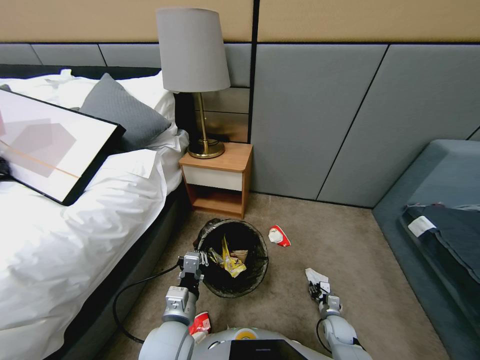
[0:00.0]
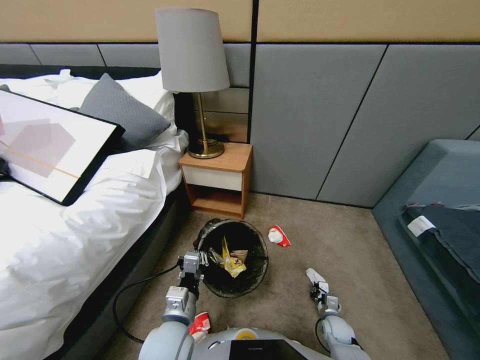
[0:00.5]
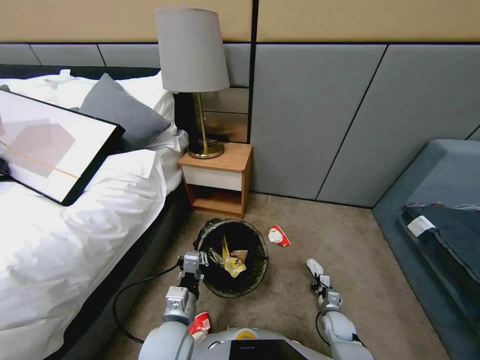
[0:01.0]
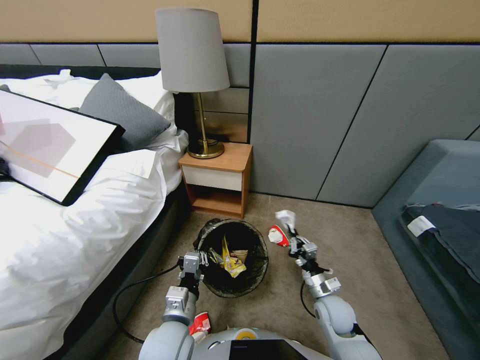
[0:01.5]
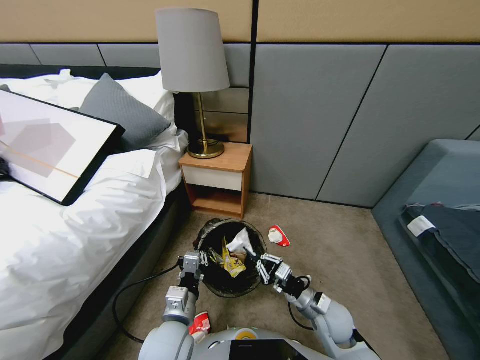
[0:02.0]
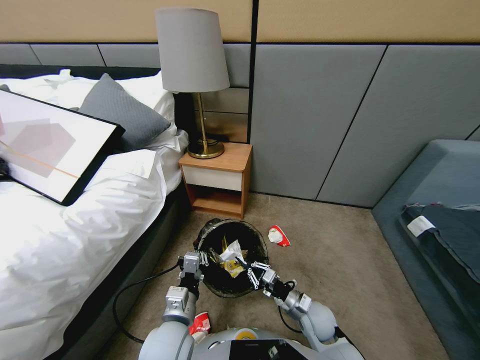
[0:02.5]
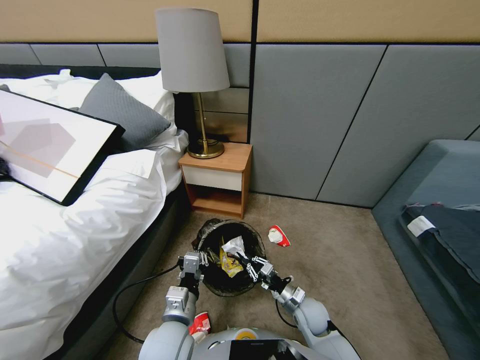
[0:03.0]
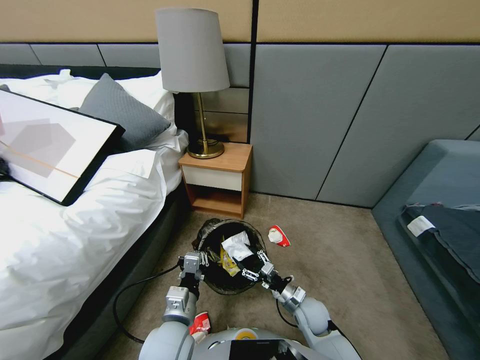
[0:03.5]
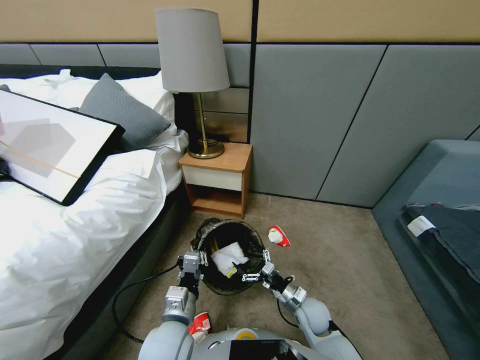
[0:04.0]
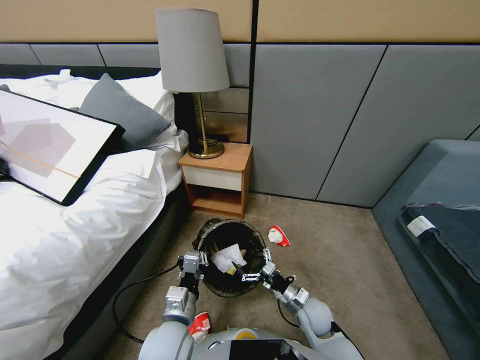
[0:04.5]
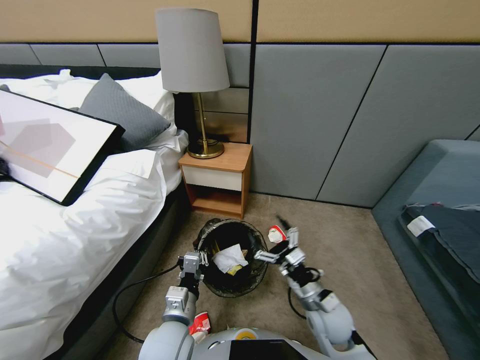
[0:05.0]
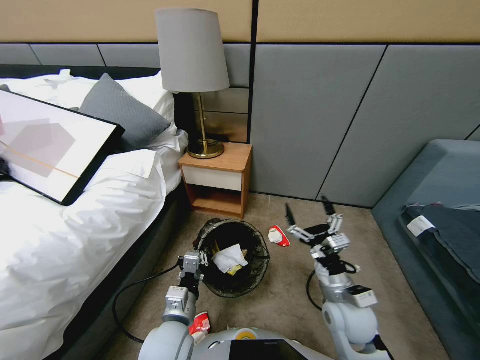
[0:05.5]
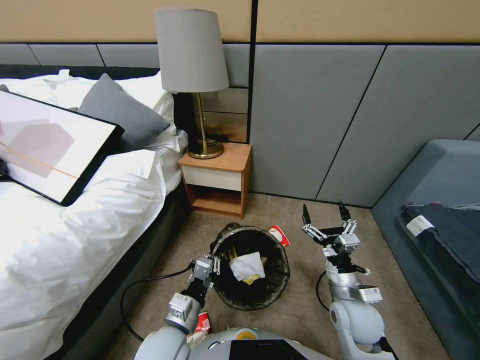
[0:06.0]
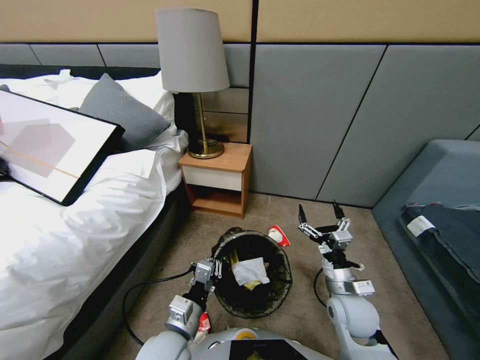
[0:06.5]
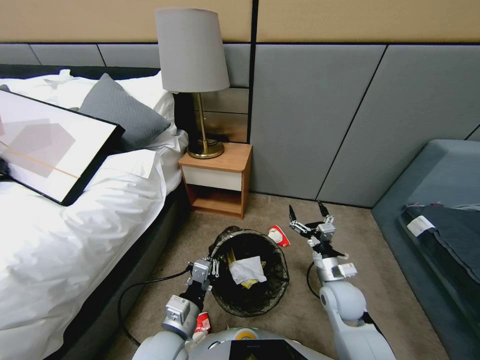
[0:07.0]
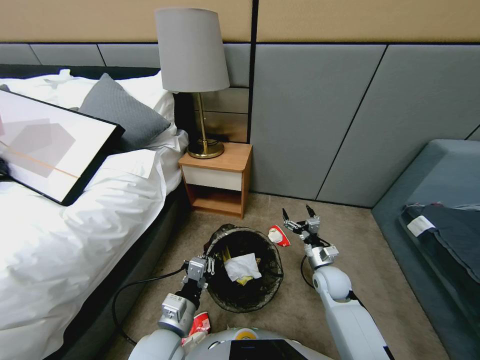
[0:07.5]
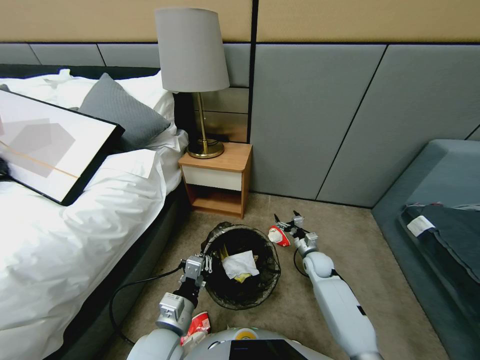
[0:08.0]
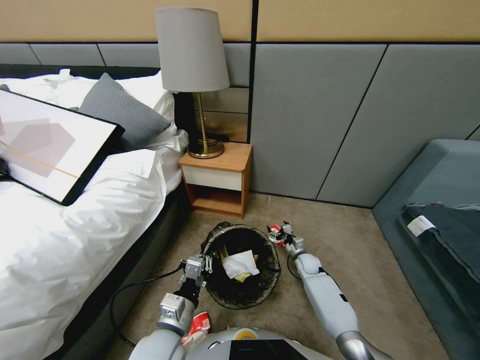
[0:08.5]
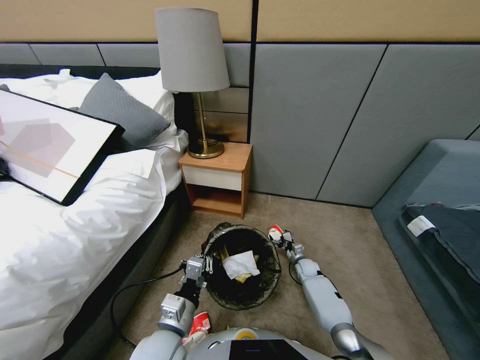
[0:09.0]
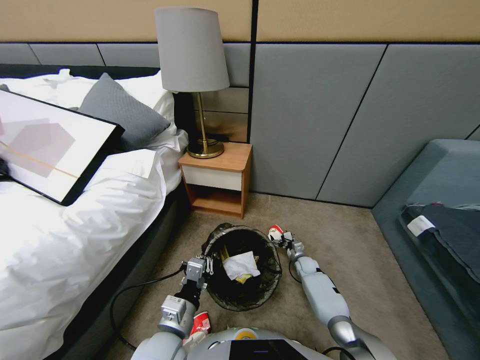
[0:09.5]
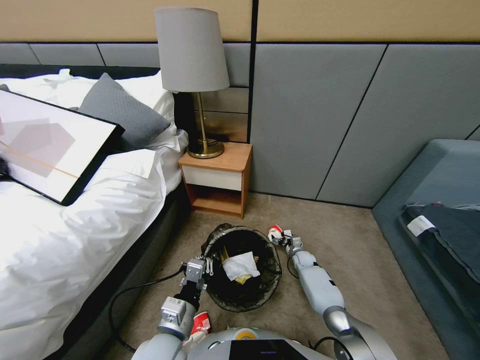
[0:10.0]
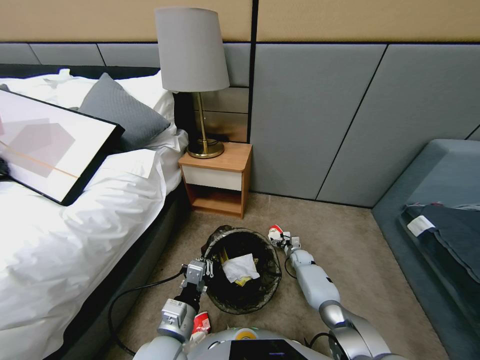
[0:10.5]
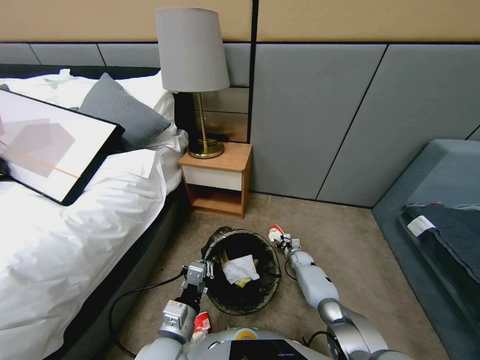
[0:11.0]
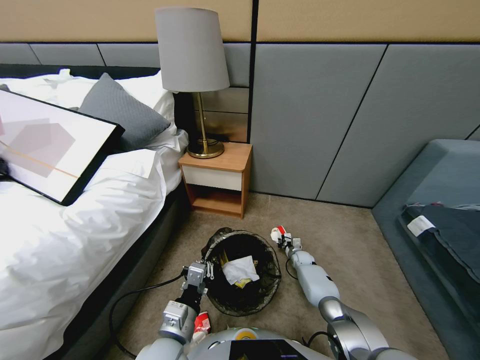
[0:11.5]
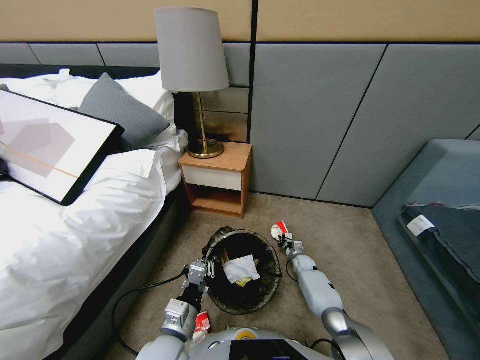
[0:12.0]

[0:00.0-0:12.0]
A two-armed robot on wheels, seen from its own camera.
Task of the whole recording: Pick up the trash bin, then pick up the garbage from the floor and place it into the trash bin.
0.0 to 2.0 s: The right gripper is displaced upward and to the left by approximately 20 cm.
2.0 to 4.0 s: The right gripper moves some 5 cm, and opens.
4.0 to 6.0 s: The right gripper heads upward, covering approximately 15 cm.
6.0 to 8.0 s: The right gripper moves forward and downward, some 25 cm.
8.0 to 10.0 s: The right gripper moves downward and forward, about 10 cm.
10.0 to 12.0 s: The right gripper closes.

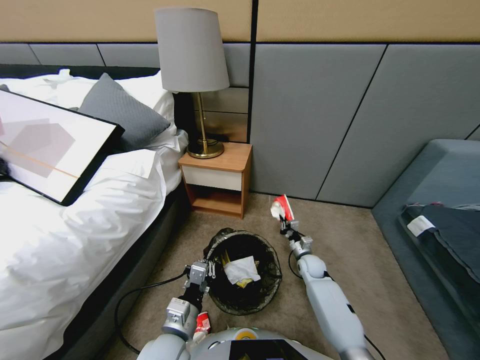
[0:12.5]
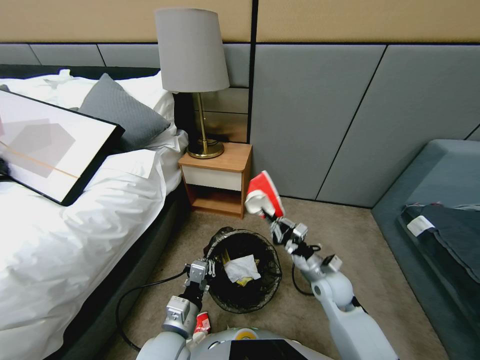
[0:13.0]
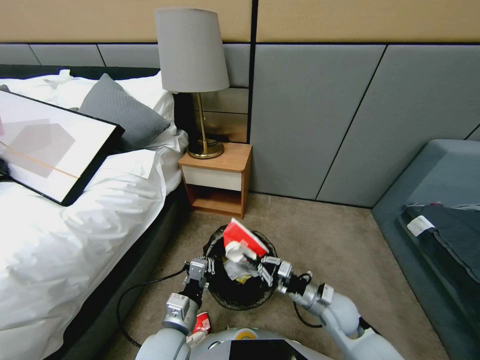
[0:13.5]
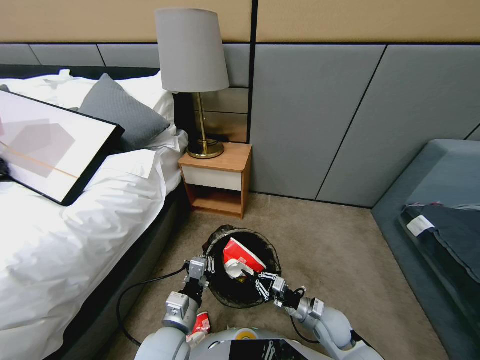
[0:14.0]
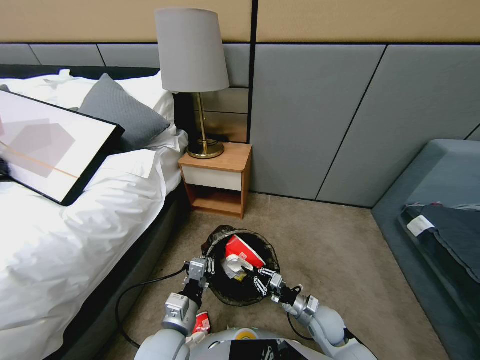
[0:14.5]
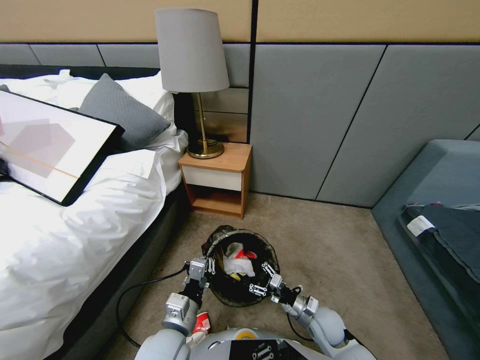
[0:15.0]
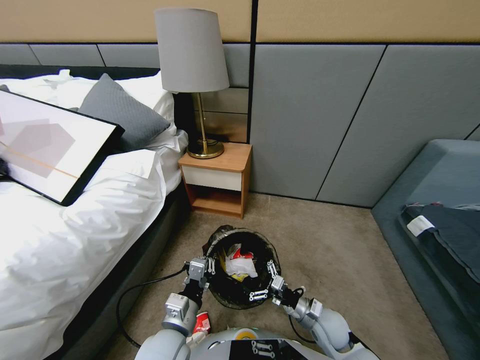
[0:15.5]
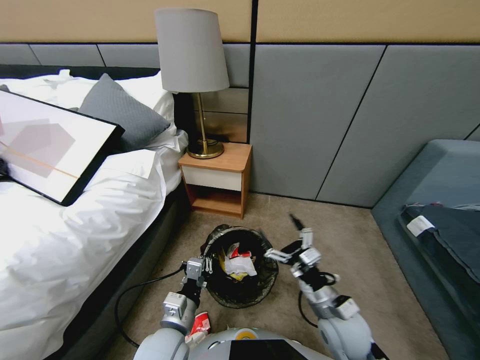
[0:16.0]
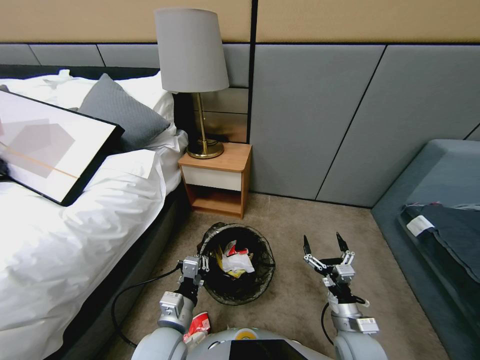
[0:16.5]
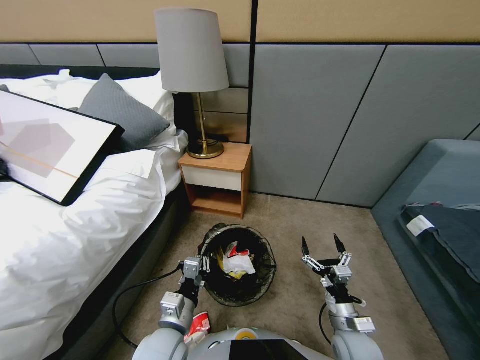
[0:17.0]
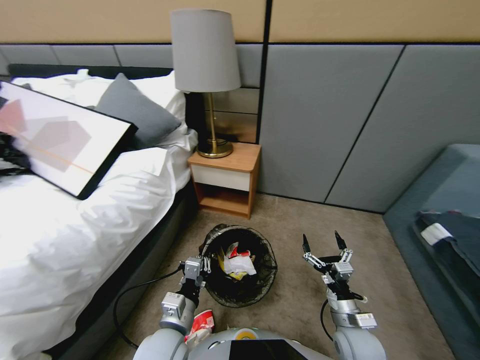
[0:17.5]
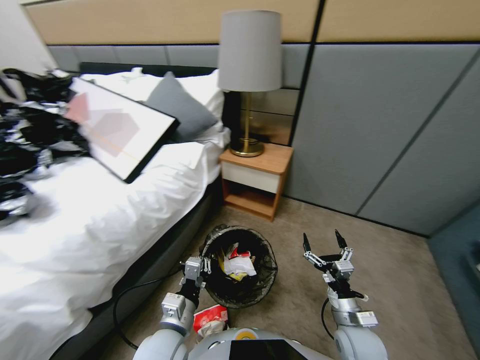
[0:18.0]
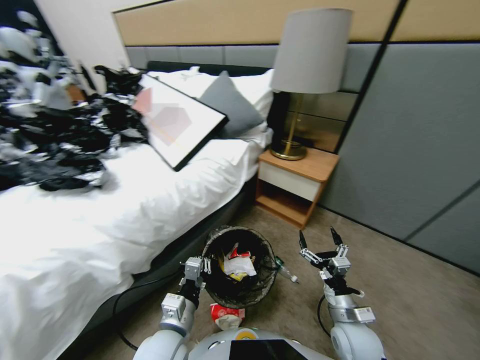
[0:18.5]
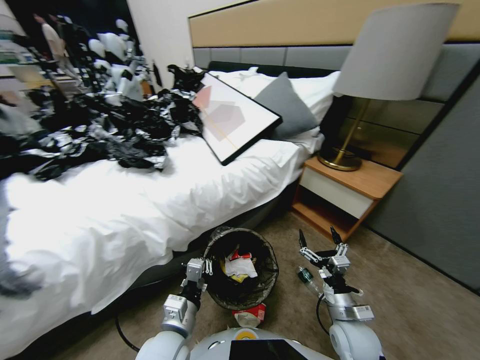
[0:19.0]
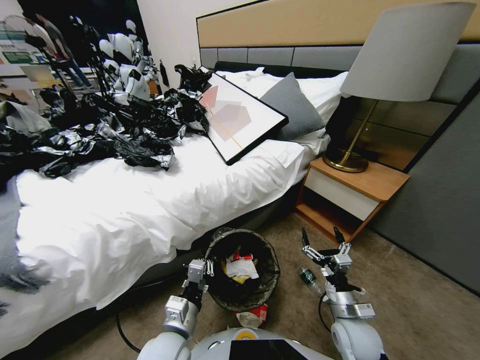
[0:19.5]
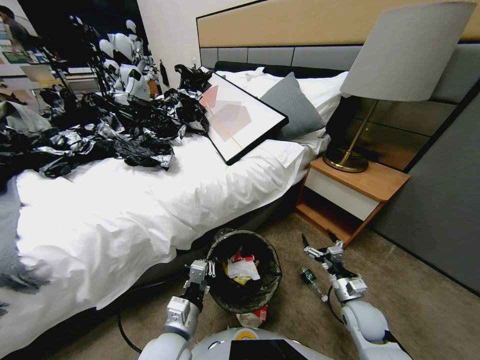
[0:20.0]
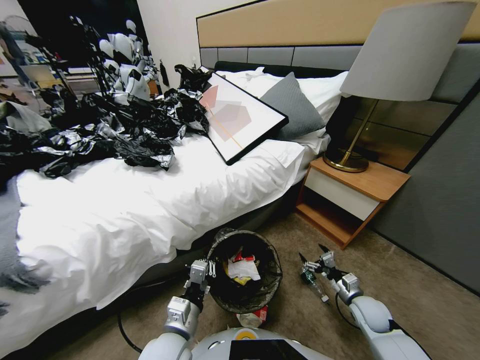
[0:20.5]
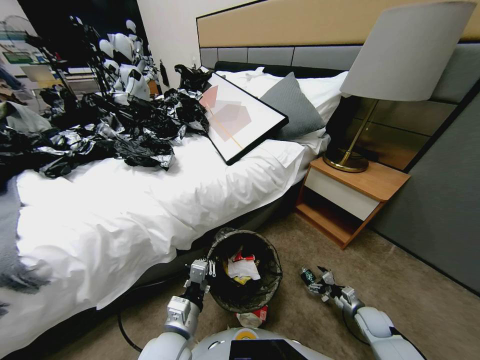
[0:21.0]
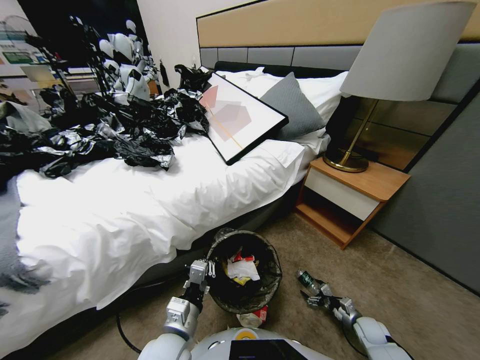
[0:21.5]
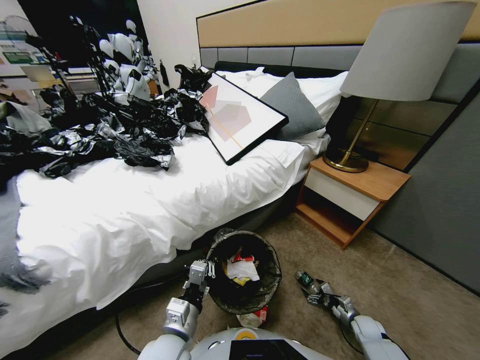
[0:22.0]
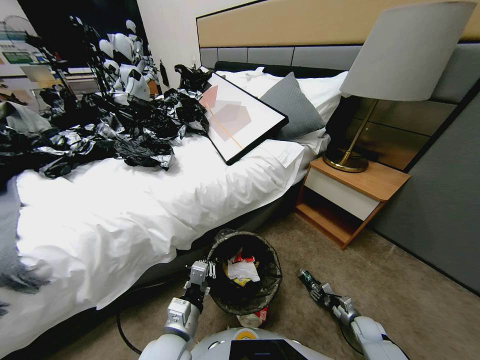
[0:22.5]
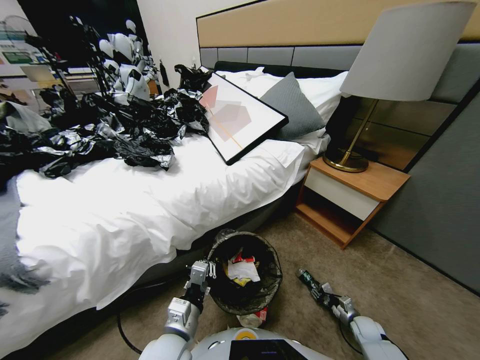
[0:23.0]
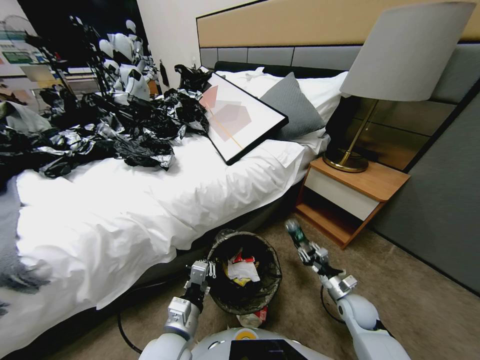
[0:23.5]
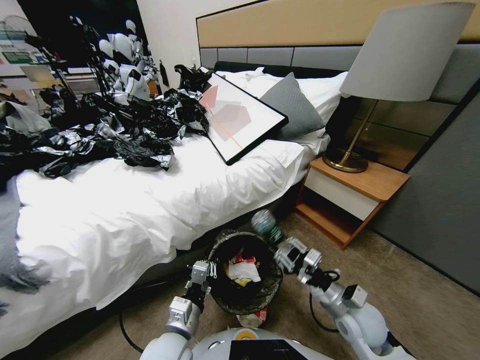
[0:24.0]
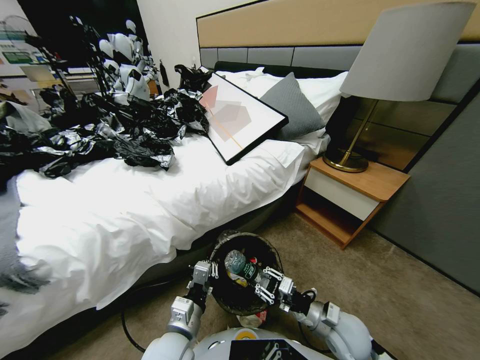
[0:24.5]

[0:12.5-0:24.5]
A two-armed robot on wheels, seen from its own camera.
Task of the whole recording: Pick up the trash bin, then pick up the garbage from the floor and place it into the trash bin.
12.5 to 14.5 s: The right gripper moves backward, roughly 15 cm.
14.5 to 16.5 s: The right gripper travels backward and upward by about 10 cm, and opens.
18.5 to 20.5 s: The right gripper travels to the right, downward and forward by about 20 cm.
20.5 to 22.5 s: The right gripper heads downward, covering about 10 cm, and closes up.
22.5 to 24.5 s: The right gripper shifts about 30 cm upward and to the left.

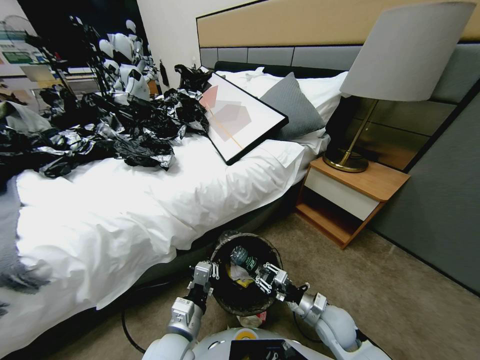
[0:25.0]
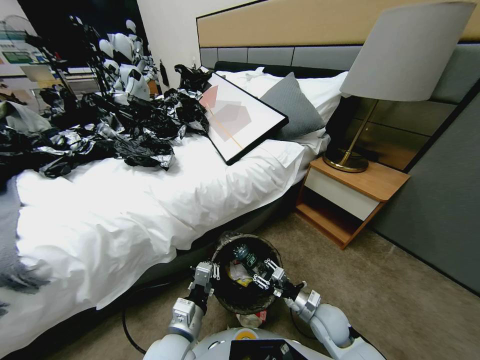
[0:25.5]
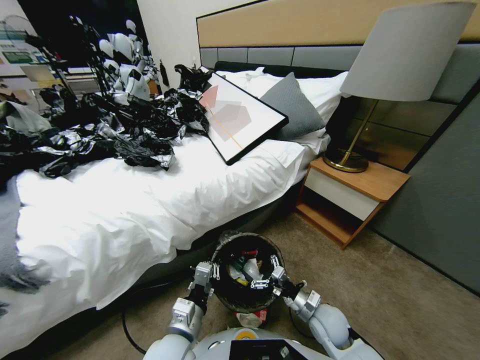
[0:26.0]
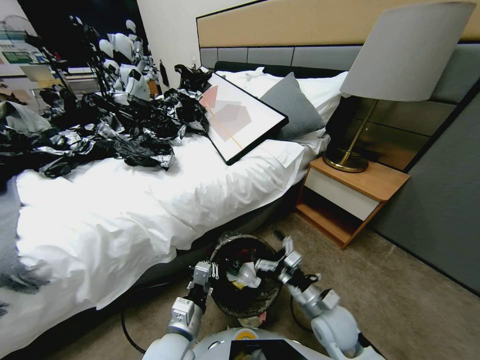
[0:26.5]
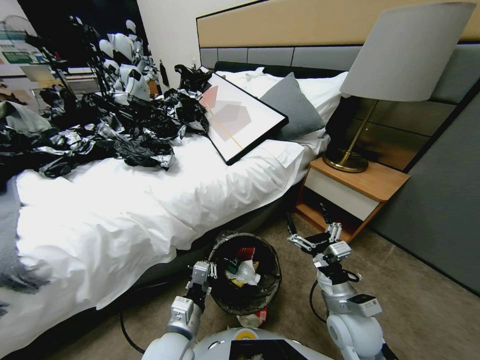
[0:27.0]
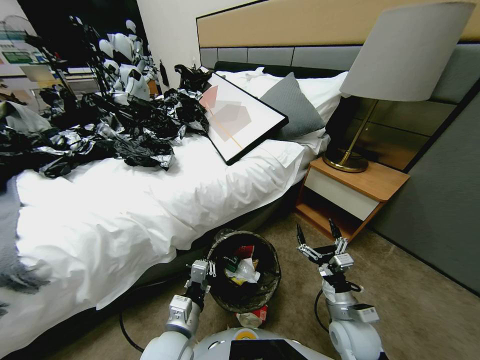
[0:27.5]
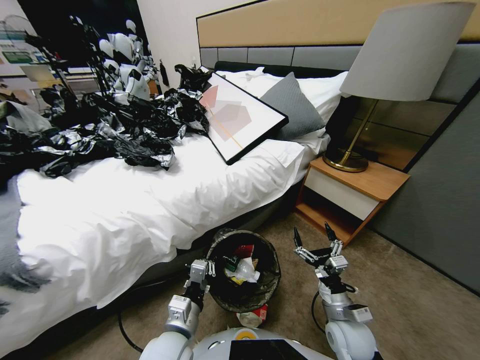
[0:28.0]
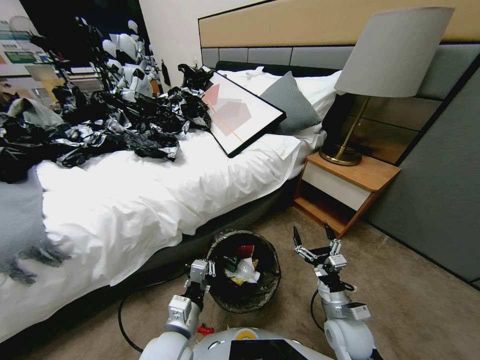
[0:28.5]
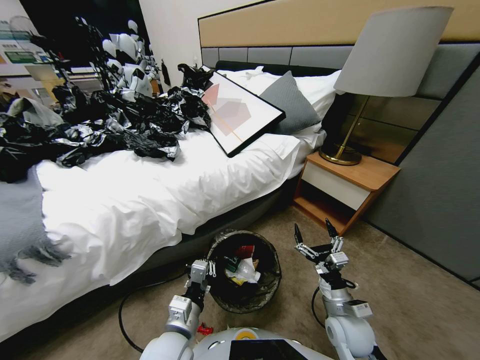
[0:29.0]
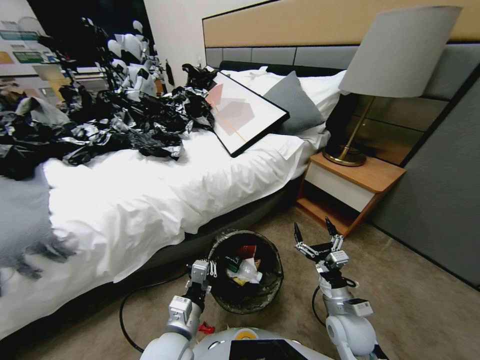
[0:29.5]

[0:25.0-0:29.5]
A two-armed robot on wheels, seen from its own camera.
Task of the whole recording: Pick up the trash bin, then pick up the garbage from the floor and place it into the trash bin.
25.0 to 27.0 s: The right gripper moves upward, approximately 10 cm, and opens its fingers.
